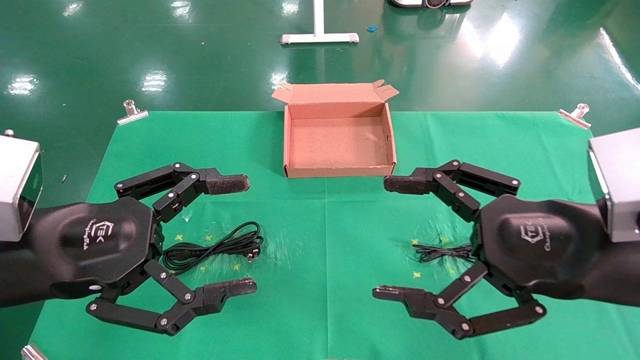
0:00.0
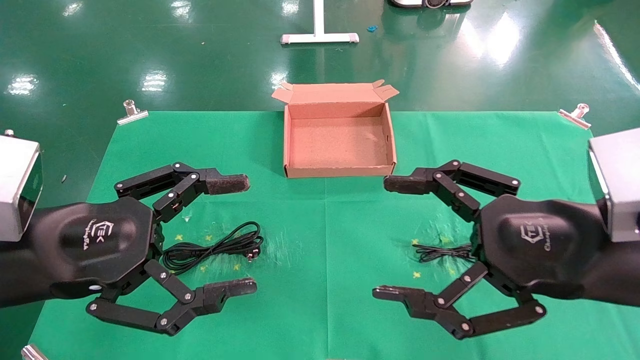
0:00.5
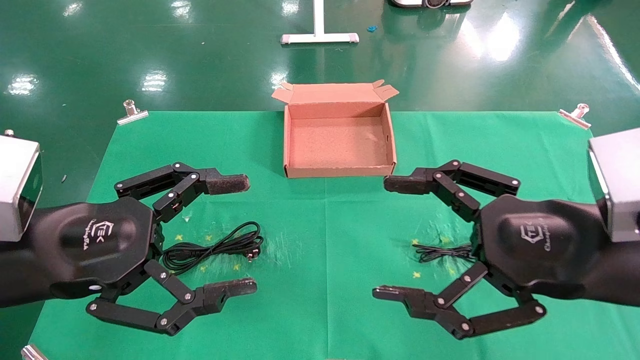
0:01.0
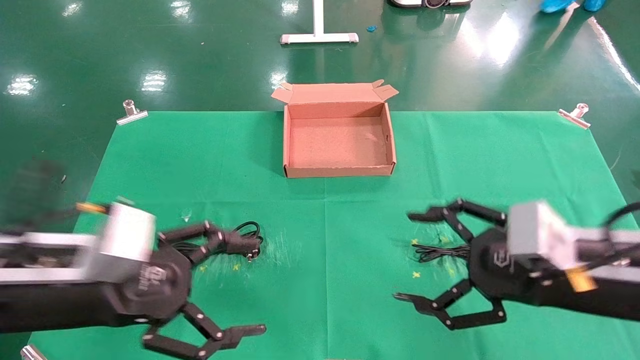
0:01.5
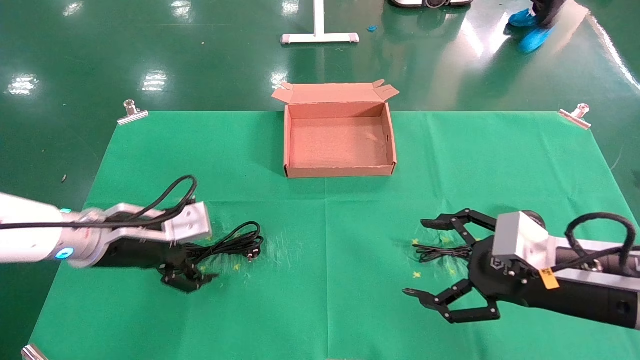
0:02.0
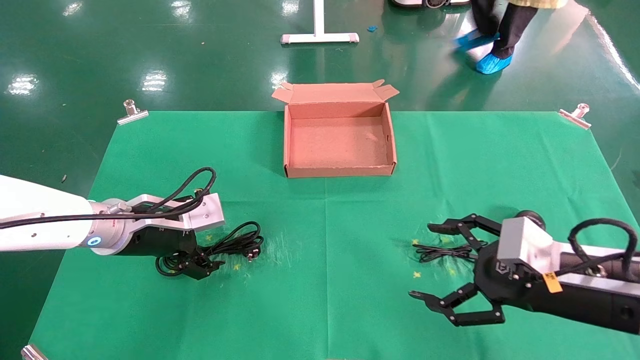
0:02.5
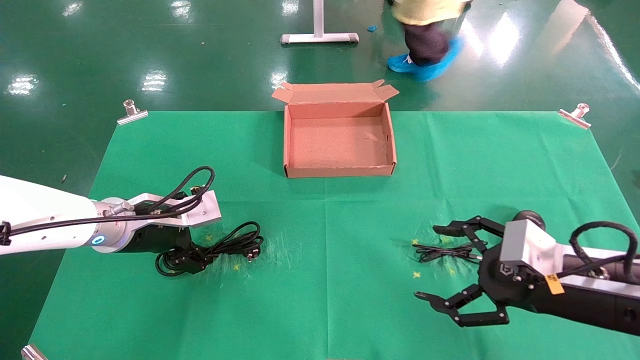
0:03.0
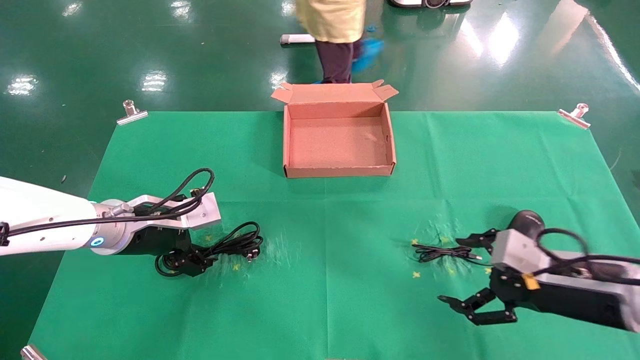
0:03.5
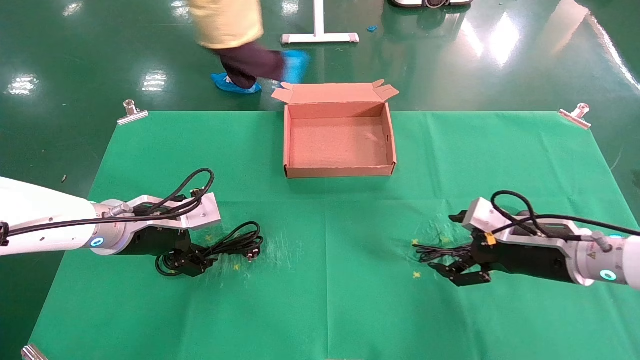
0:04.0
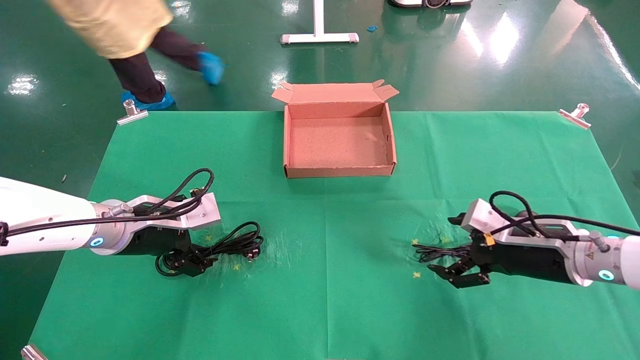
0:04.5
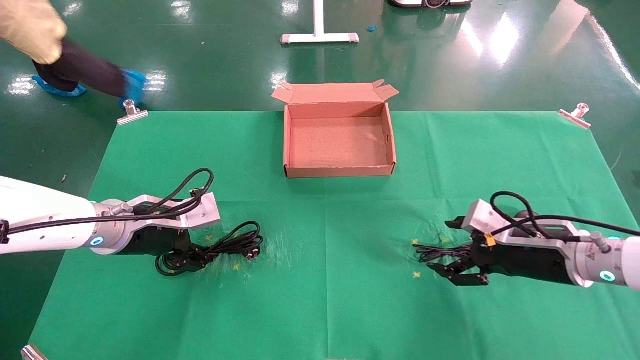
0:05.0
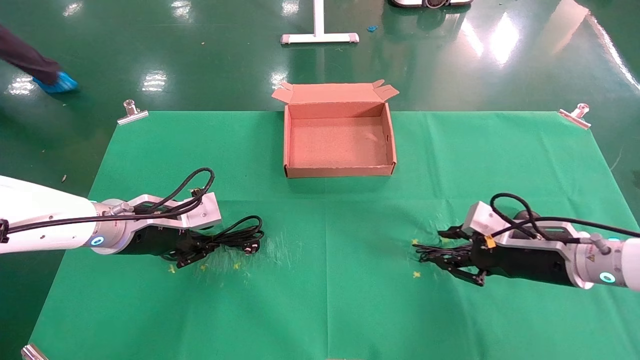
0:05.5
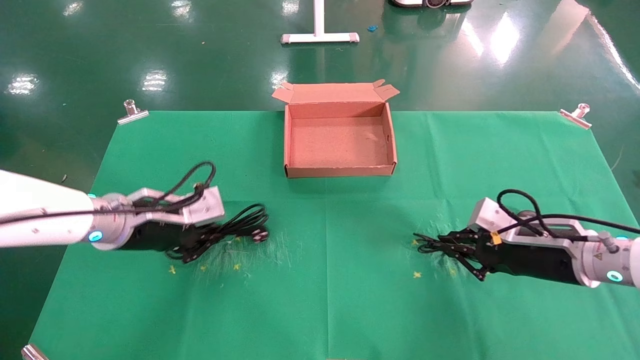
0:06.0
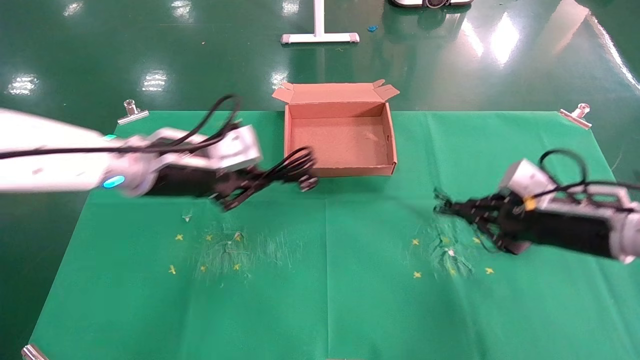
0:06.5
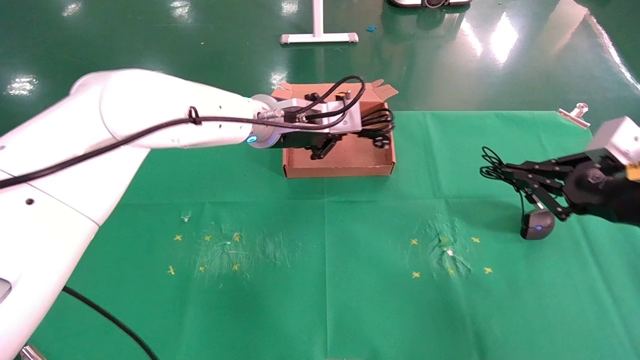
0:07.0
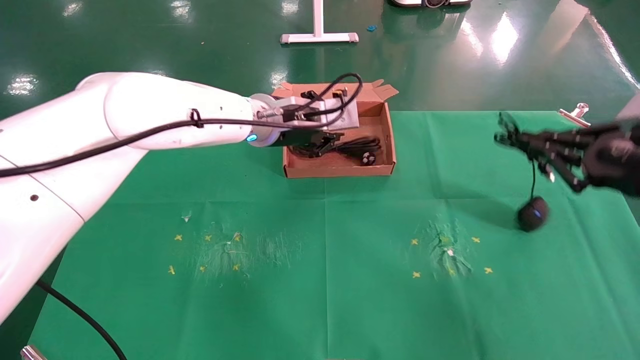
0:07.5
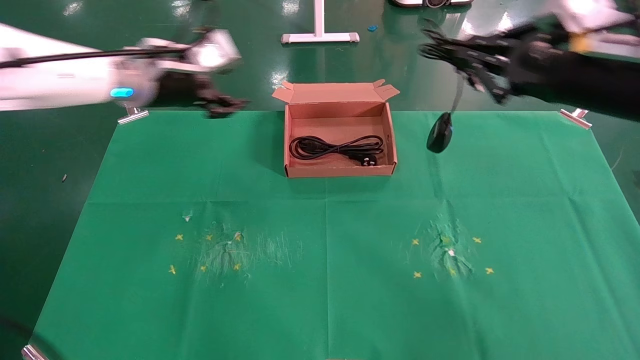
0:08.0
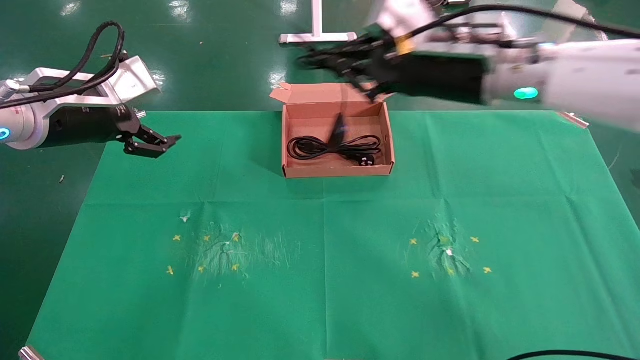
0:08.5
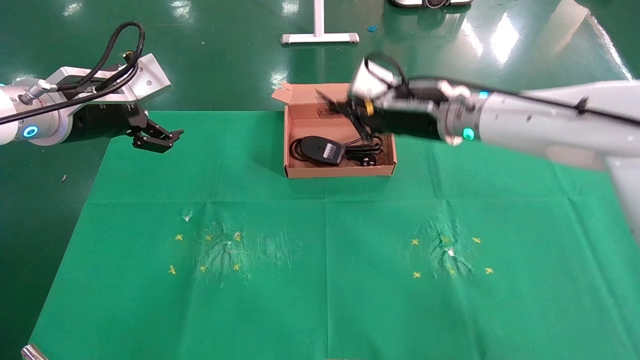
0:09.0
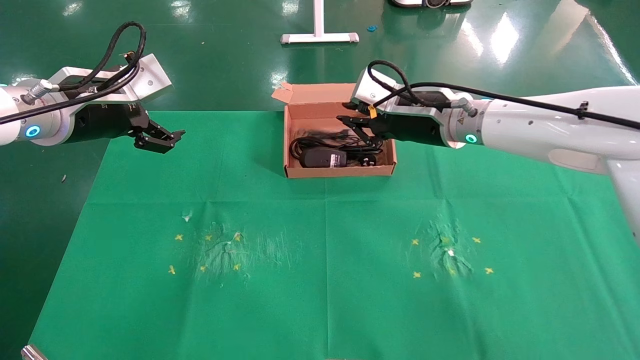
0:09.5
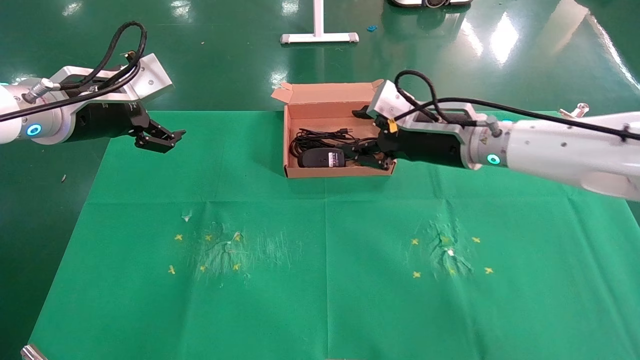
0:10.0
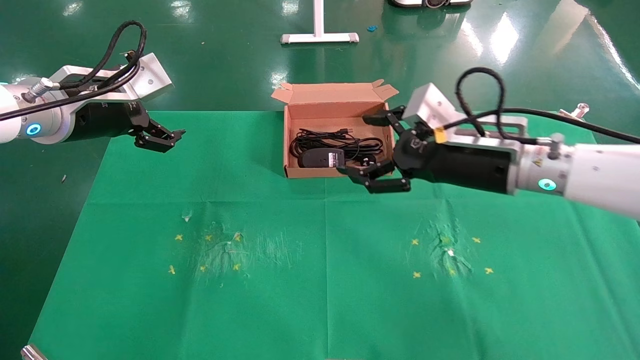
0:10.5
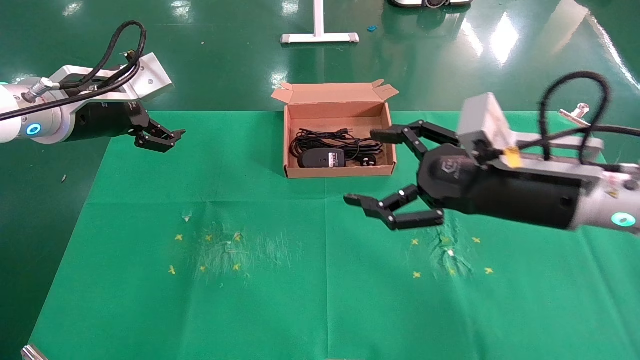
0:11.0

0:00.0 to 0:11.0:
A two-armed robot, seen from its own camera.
Task of the whole recording: grasp data cable left put into box grasp mouse right put into box.
Step, 0:01.5 to 0:06.0: Simultaneously pick up the mouse and power cord from the accessory packaging area.
Step, 0:06.5 to 0:09.0: Place the mouse and power cord into the box.
0:00.0 to 0:02.0: The right gripper shifts some 10 cm downward and forward. The left gripper heads forward and downward, covering some 15 cm.
0:02.0 to 0:03.5: The right gripper changes place by some 5 cm.
0:03.5 to 0:05.5: The left gripper closes its fingers. Meanwhile the right gripper travels forward by approximately 5 cm, and closes up.
0:05.5 to 0:07.5: The right gripper shifts about 15 cm upward, to the right and backward, and closes its fingers. The left gripper travels to the right, upward and forward by roughly 25 cm.
0:07.5 to 0:09.0: The right gripper moves to the left and forward, about 30 cm. The left gripper moves to the left and backward, approximately 25 cm, and opens its fingers.
0:09.0 to 0:11.0: The right gripper travels backward and to the right by roughly 15 cm, and opens.

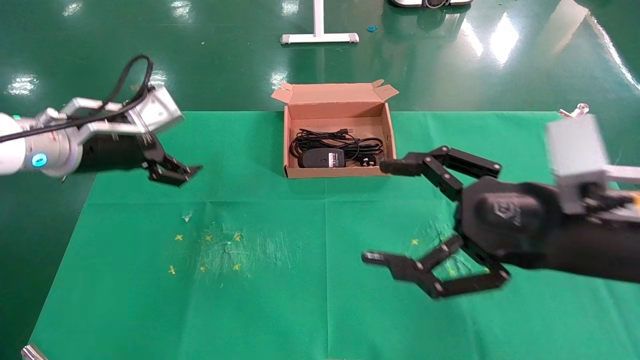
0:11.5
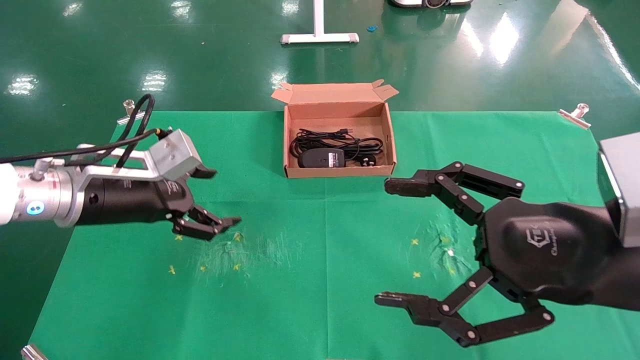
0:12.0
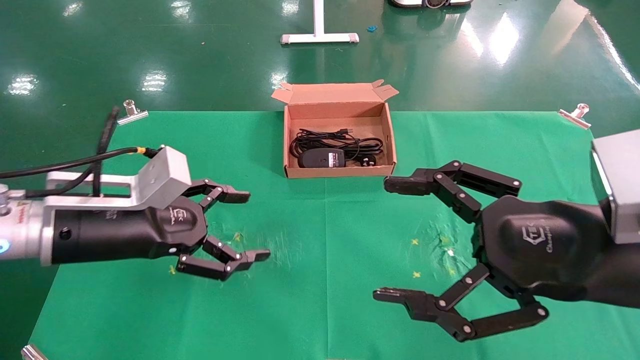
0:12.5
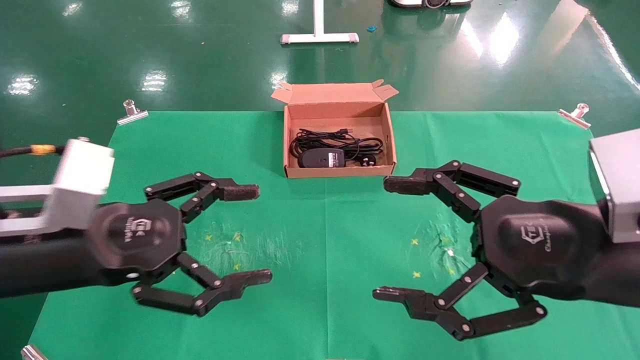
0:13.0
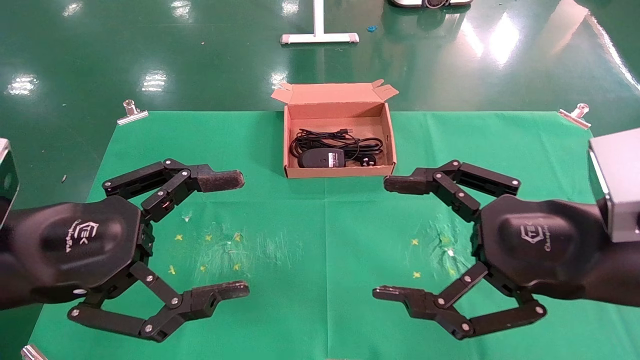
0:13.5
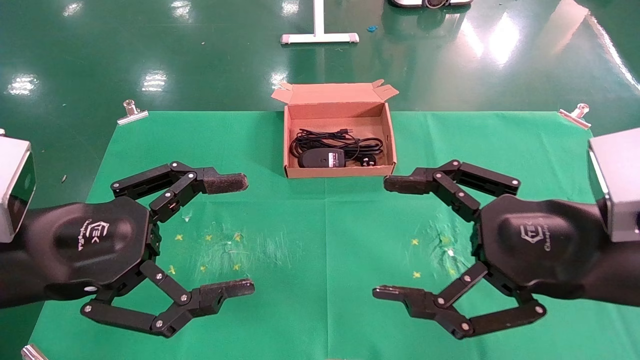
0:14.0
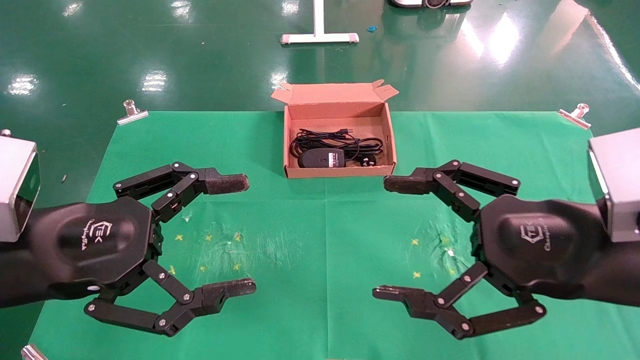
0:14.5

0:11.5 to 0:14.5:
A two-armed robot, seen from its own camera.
Task of the whole recording: grasp data cable left put into box grasp mouse right put into box.
0:11.5 to 0:13.0: The left gripper shifts roughly 15 cm backward.
0:13.0 to 0:14.5: The grippers make only small movements.
